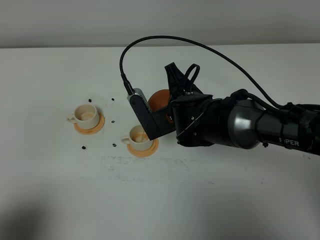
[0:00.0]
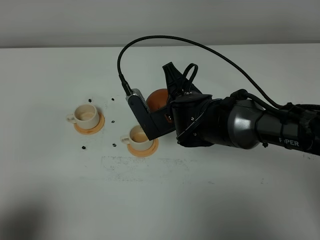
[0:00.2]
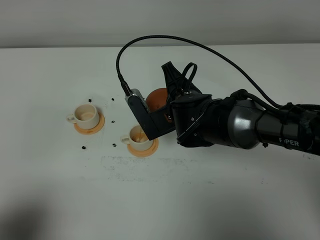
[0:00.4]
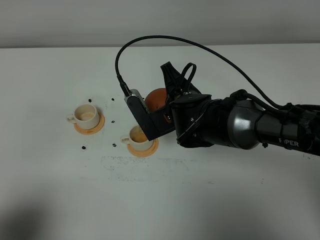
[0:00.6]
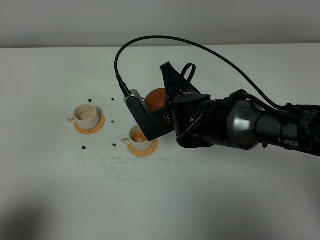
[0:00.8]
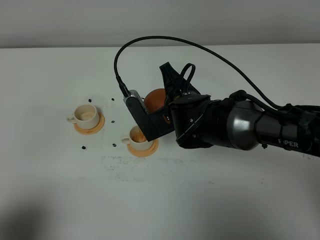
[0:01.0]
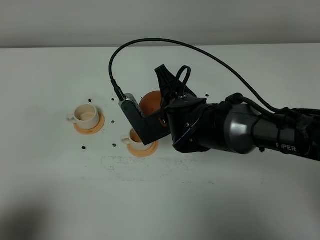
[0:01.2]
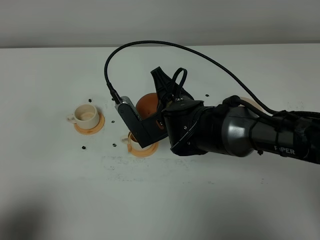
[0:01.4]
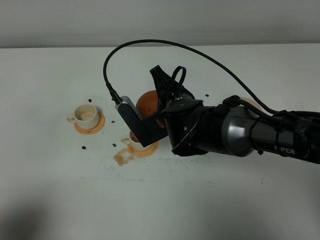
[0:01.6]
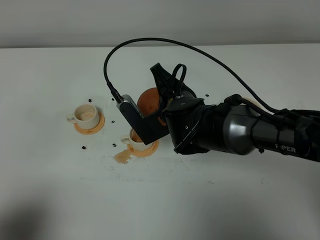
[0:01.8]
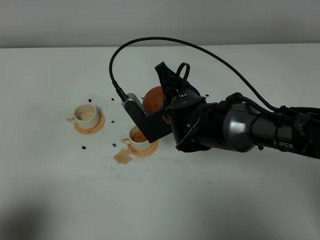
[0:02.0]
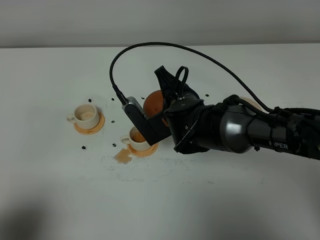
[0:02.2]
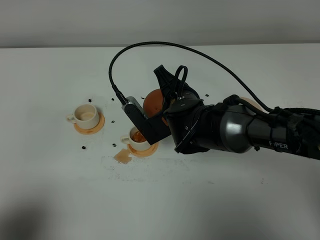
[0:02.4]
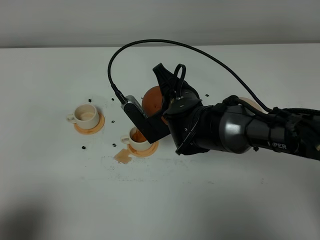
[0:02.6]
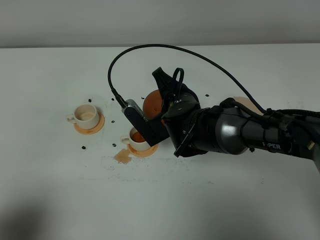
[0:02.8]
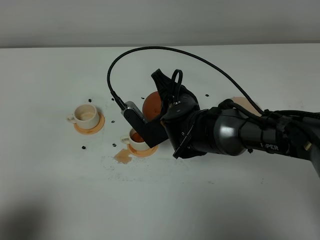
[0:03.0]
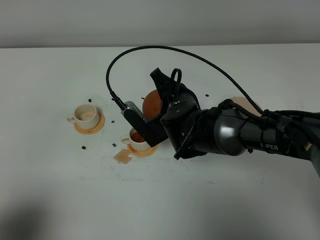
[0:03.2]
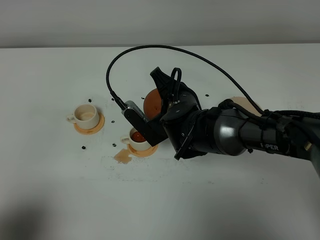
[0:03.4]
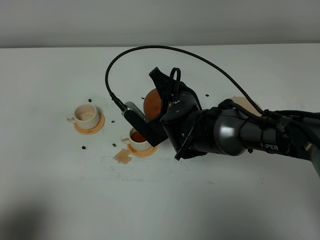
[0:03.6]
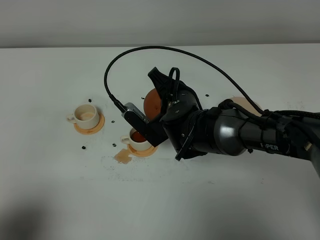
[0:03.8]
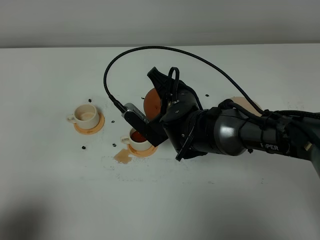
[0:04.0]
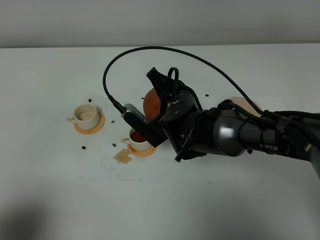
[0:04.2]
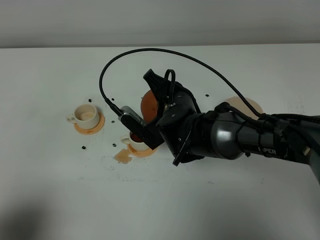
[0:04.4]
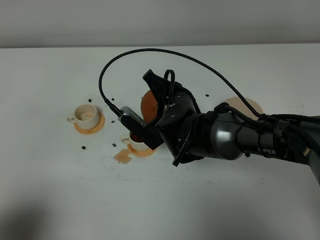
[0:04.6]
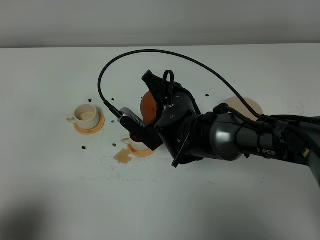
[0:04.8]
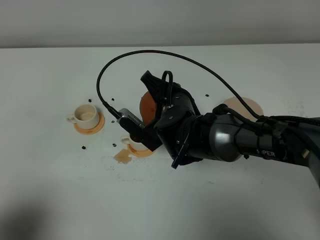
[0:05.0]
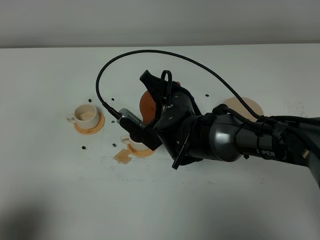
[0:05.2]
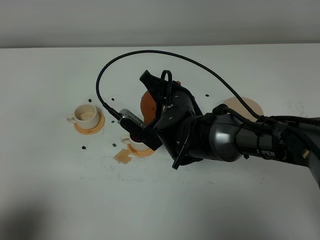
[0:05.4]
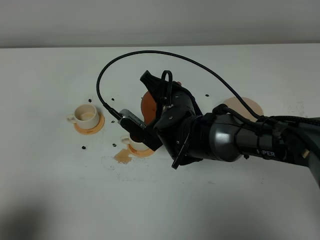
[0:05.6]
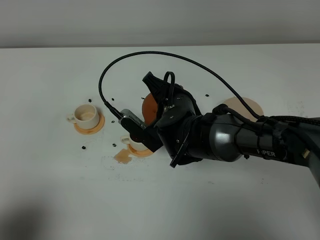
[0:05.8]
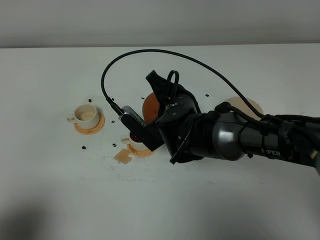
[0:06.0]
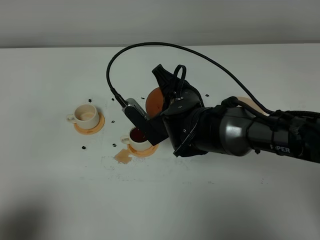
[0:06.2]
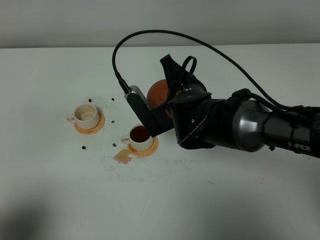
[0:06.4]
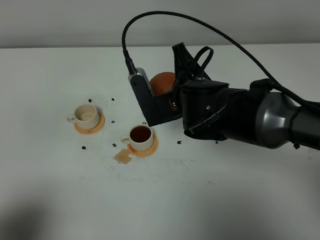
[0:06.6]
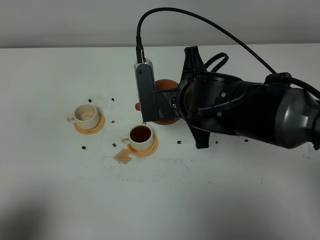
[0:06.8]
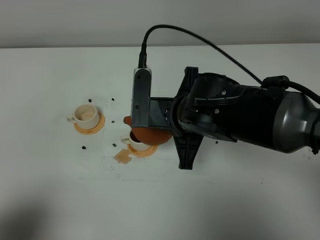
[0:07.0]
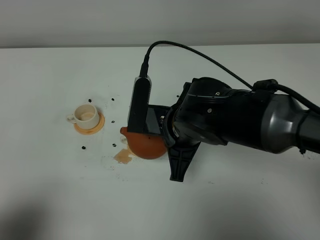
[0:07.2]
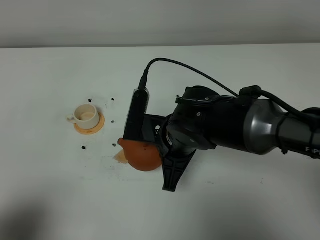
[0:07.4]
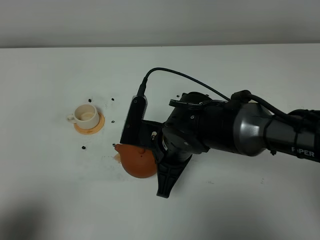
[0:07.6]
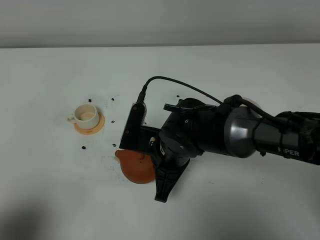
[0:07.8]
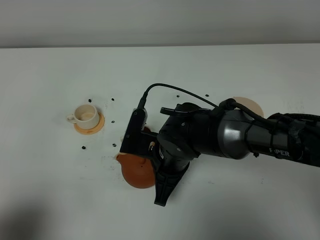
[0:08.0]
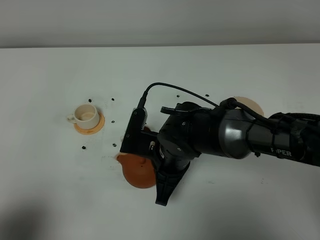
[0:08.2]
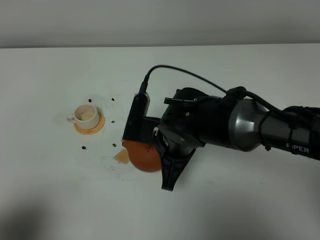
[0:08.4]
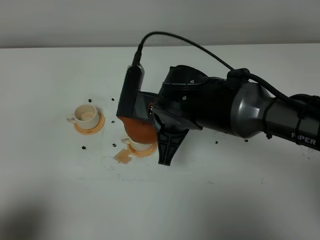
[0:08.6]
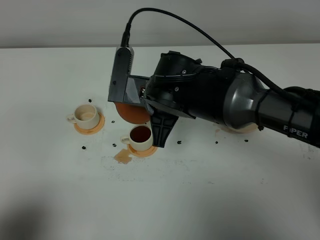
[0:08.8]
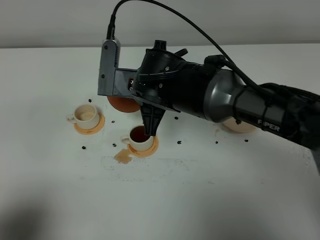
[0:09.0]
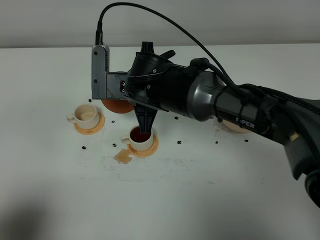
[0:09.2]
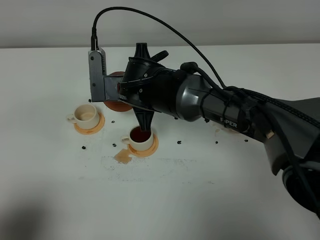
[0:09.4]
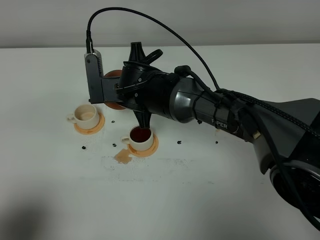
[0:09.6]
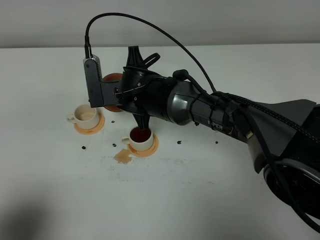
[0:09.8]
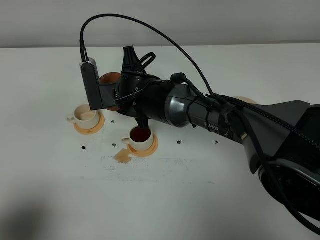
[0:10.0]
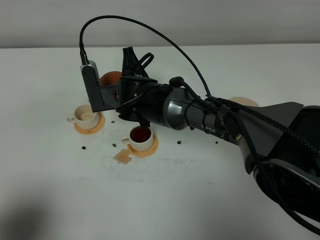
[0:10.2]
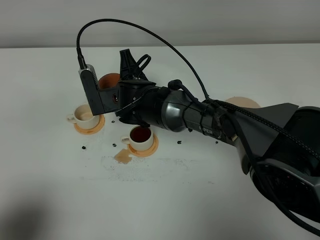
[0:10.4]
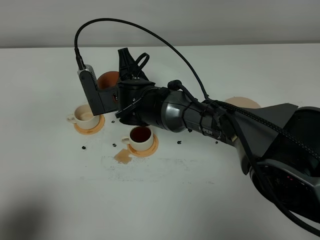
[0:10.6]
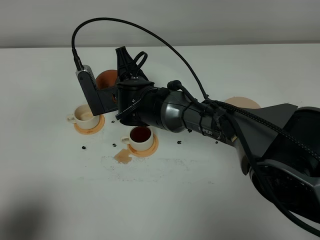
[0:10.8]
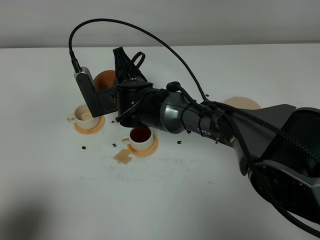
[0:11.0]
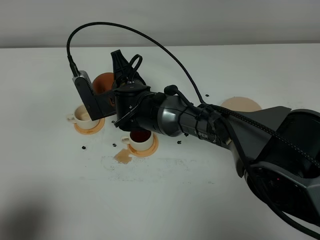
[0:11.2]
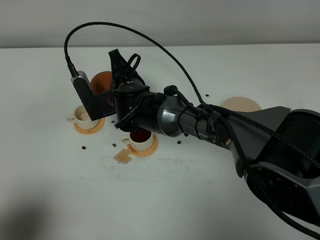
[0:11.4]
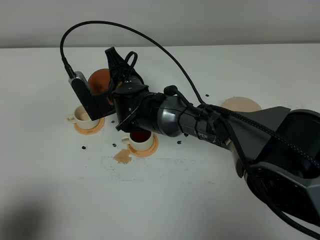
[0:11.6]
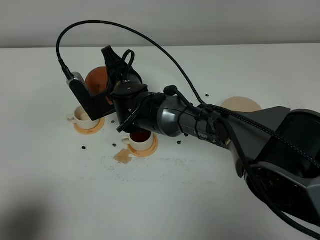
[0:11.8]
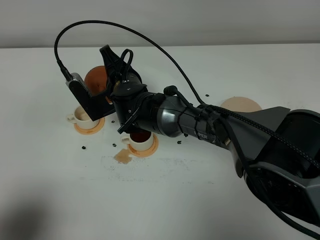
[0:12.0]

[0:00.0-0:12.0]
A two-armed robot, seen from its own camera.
Task of the whole recording: grasp the brown teapot and pour the tea into the two white teacups one by one, put the brown teapot back in its original place.
0:00.0 to 0:03.0: There are only small adjustments of the grippers.
0:03.0 to 0:04.4: There are only small adjustments of the grippers.
0:04.4 to 0:06.0: Both grippers stay put.
0:06.0 to 0:07.6: The right gripper travels backward by approximately 5 cm.
0:07.6 to 0:09.0: The right gripper shifts some 10 cm forward and upward.
0:09.0 to 0:10.4: The right gripper is displaced downward and forward by some 10 cm.
0:10.4 to 0:12.0: There are only small adjustments of the grippers.

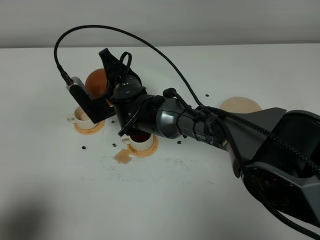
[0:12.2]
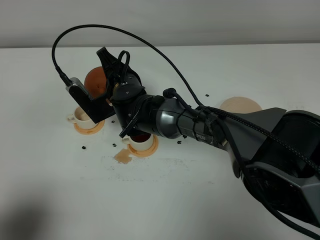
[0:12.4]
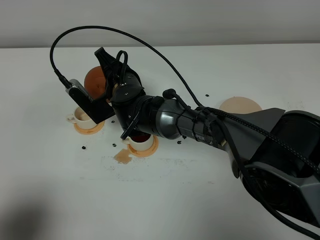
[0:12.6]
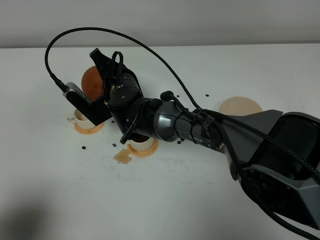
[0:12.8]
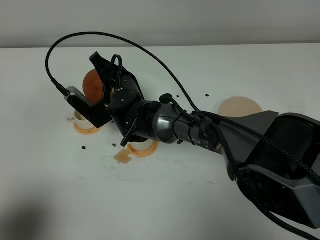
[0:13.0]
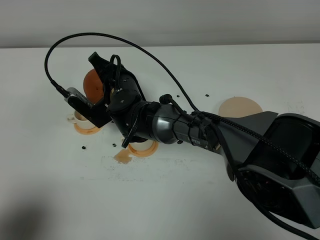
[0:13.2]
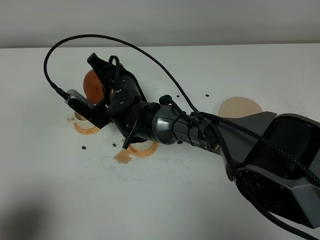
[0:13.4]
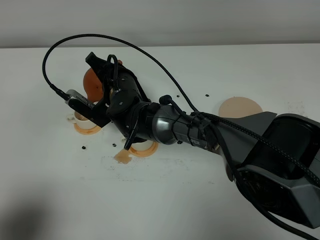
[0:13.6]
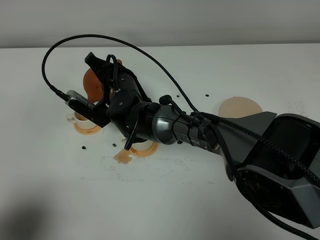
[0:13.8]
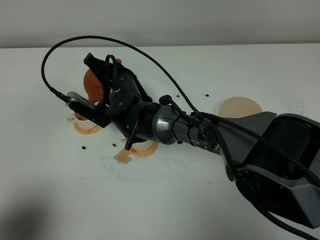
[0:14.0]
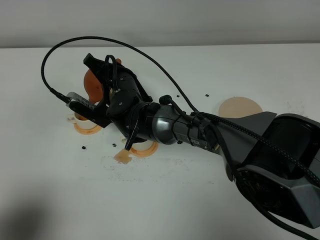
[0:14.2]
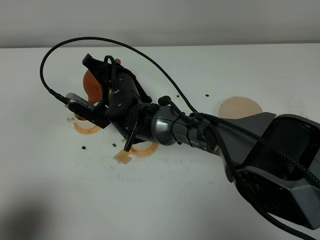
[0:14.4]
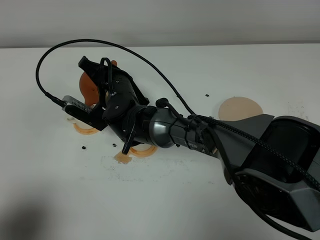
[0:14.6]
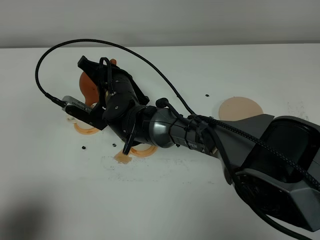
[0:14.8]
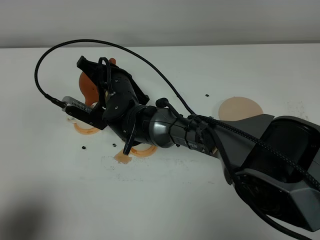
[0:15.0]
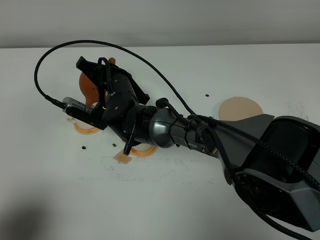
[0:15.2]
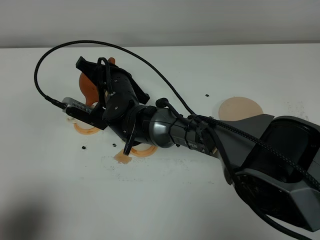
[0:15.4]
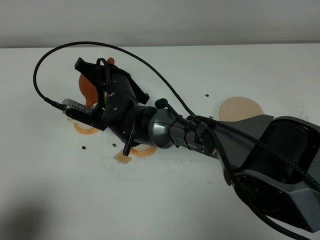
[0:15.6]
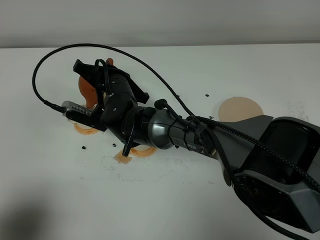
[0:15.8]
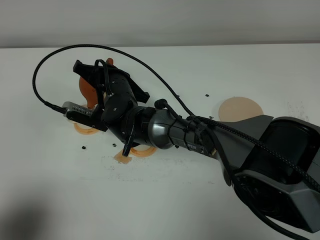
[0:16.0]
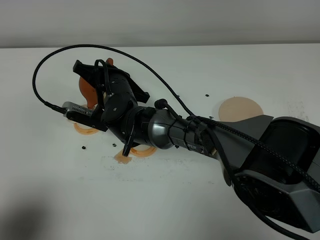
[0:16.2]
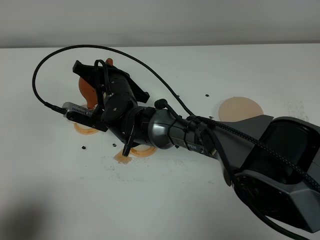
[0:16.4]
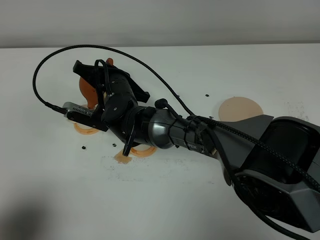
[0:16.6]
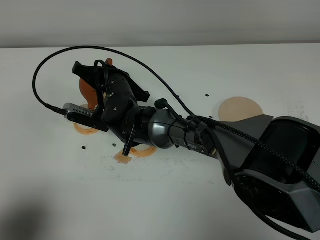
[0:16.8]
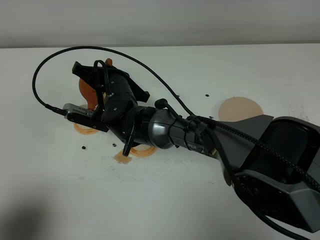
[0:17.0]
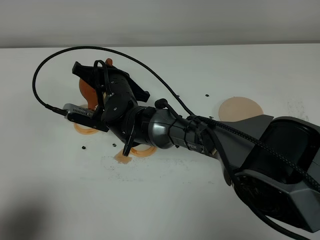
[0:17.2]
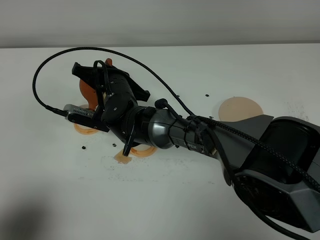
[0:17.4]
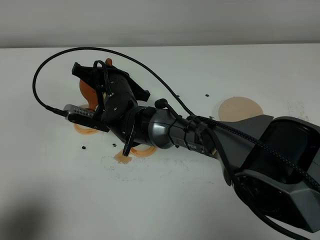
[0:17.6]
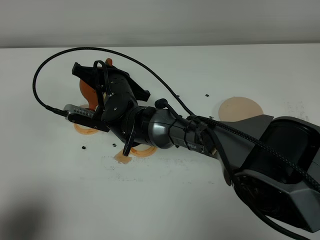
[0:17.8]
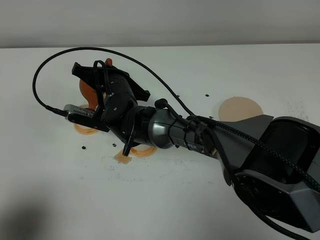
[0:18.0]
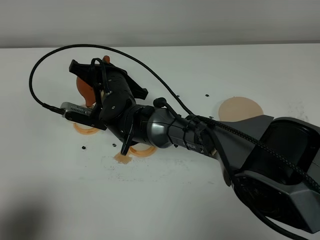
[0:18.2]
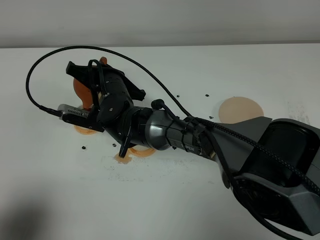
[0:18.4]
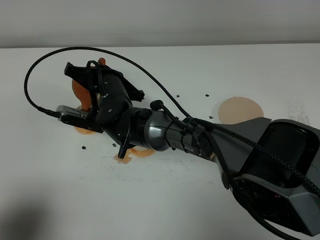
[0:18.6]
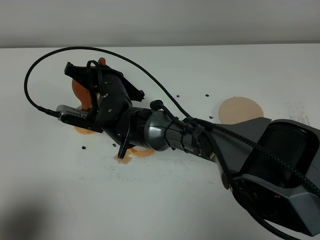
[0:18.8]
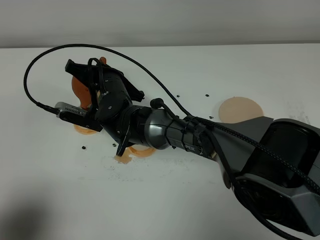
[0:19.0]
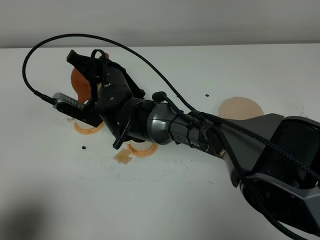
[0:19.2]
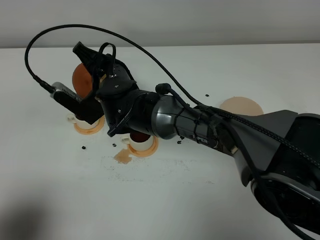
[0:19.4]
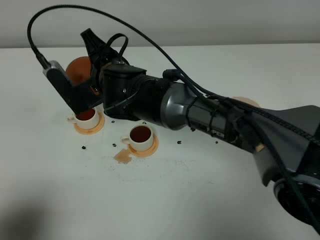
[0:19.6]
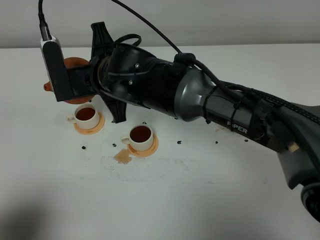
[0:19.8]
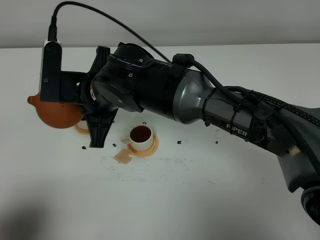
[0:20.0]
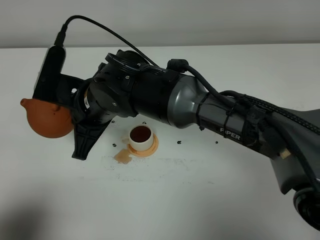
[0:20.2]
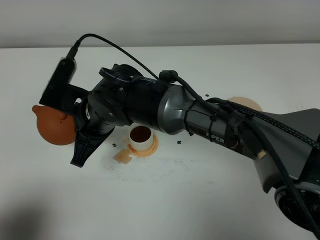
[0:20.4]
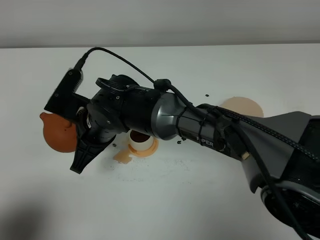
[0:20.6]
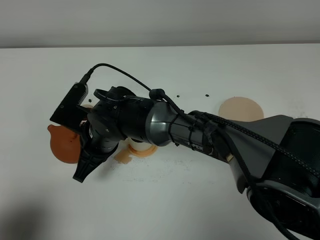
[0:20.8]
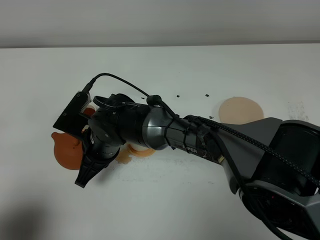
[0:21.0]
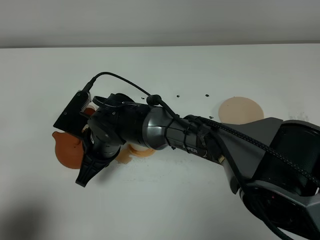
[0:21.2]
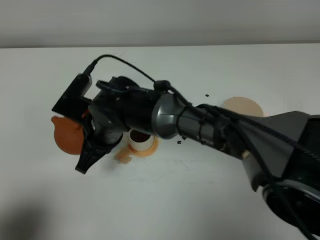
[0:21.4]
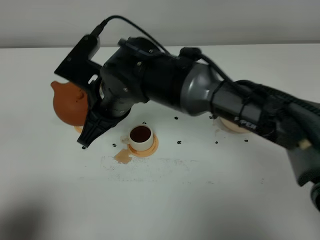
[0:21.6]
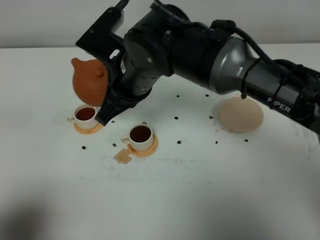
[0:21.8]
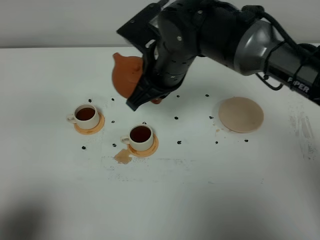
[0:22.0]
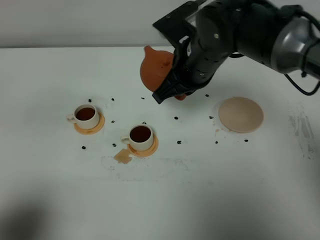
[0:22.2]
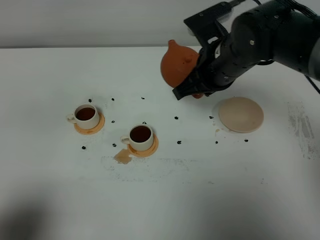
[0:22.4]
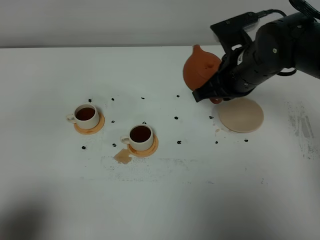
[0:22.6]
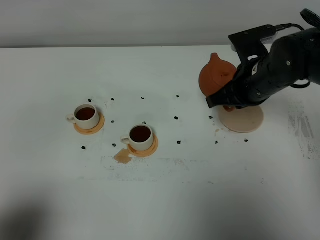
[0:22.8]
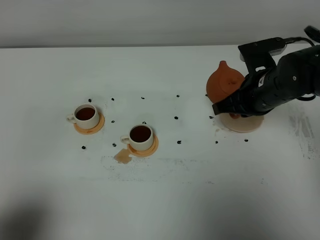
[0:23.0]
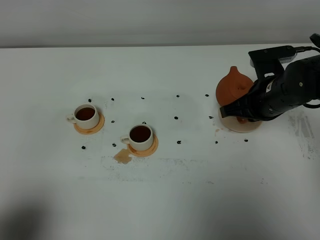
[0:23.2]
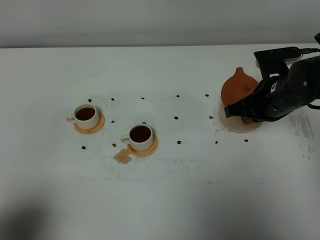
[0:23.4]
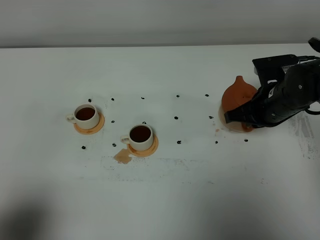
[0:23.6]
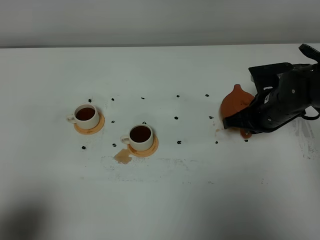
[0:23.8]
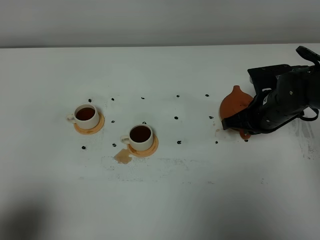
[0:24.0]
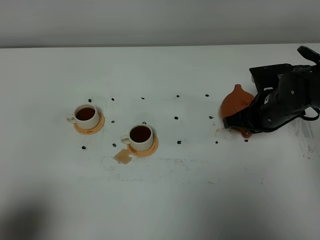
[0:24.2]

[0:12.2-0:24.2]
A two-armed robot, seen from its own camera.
Task of the whole recording: grasp the brown teapot and pour the tea into the two white teacups one by one, put the brown teapot back in its original place.
0:12.2 to 0:13.8: There are only small adjustments of the grippers.
0:13.8 to 0:16.6: The grippers stay close to where they were, moving slightly.
0:16.6 to 0:18.2: The two grippers keep their place.
0:18.2 to 0:19.8: The right gripper travels upward and backward by roughly 10 cm.
0:19.8 to 0:21.2: The right gripper shifts about 10 cm downward.
0:21.2 to 0:22.6: The right gripper heads to the right and upward, covering roughly 25 cm.
0:22.6 to 0:24.2: The right gripper travels downward and to the right by some 10 cm.
